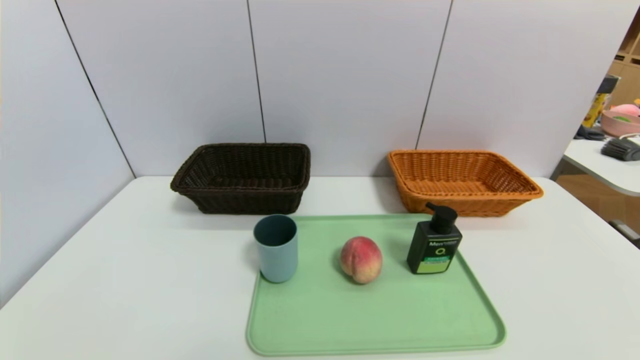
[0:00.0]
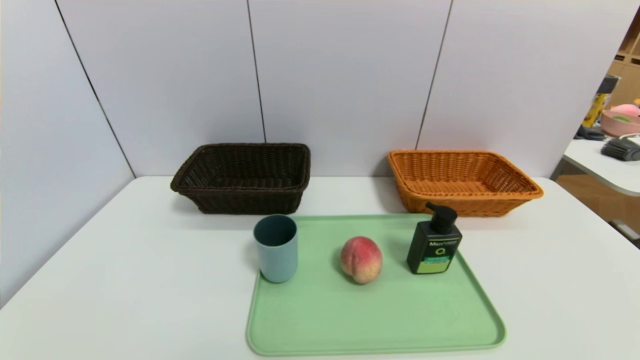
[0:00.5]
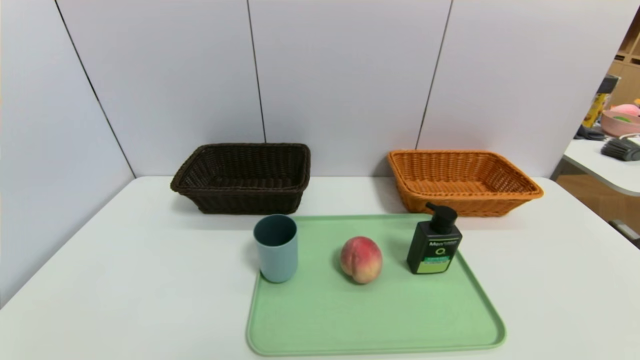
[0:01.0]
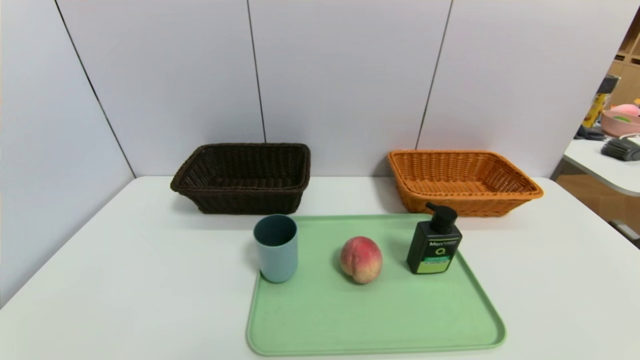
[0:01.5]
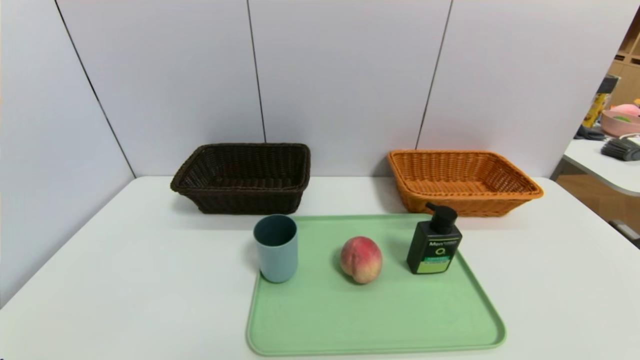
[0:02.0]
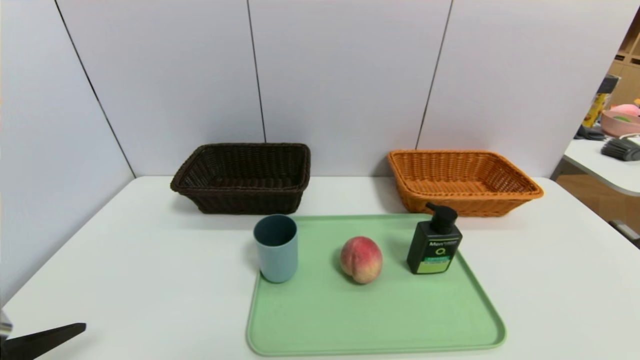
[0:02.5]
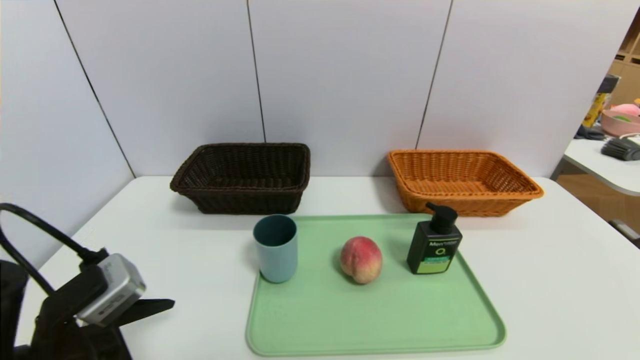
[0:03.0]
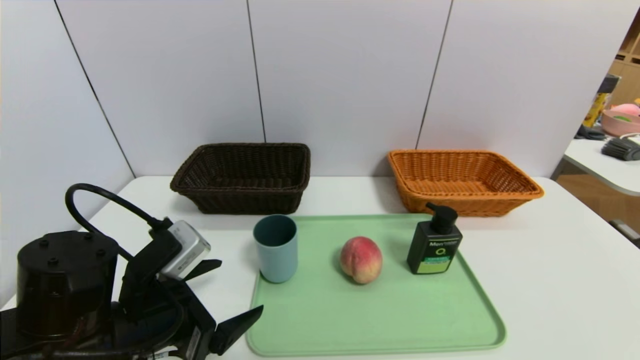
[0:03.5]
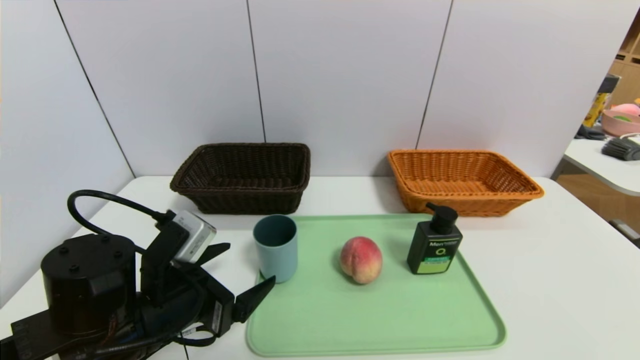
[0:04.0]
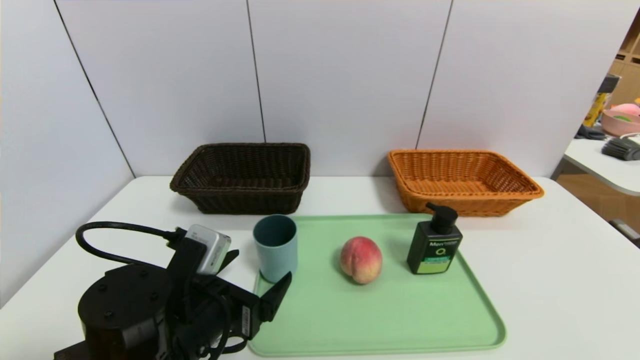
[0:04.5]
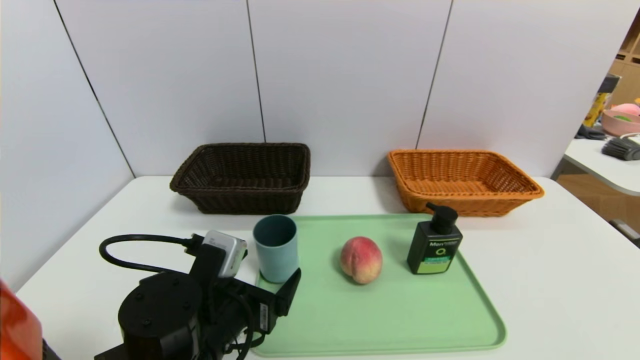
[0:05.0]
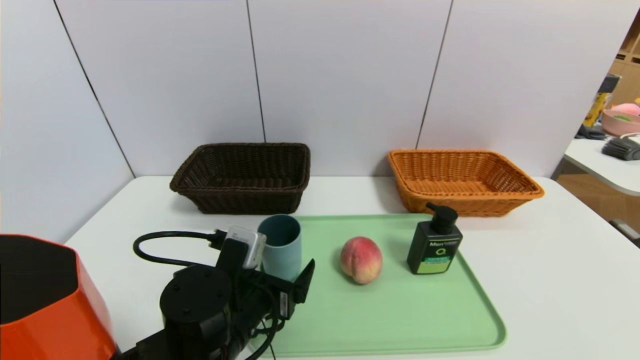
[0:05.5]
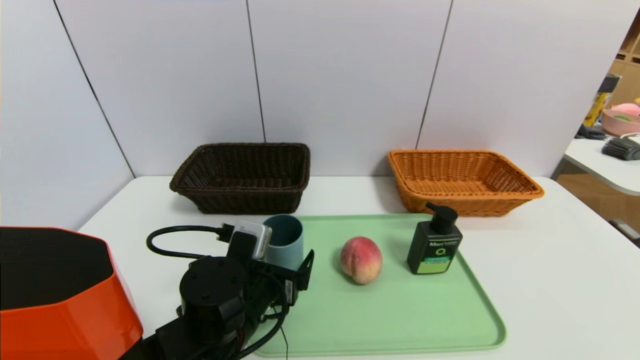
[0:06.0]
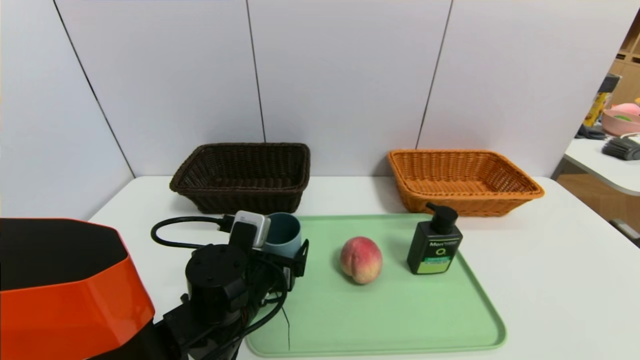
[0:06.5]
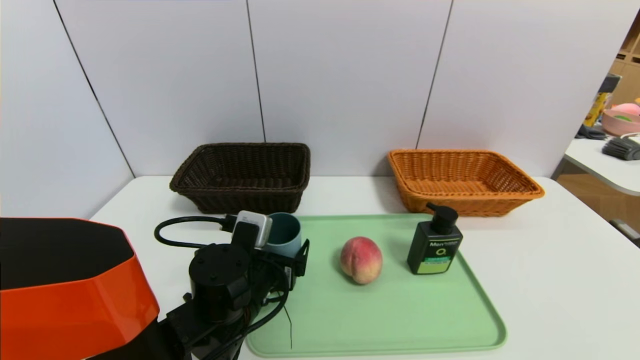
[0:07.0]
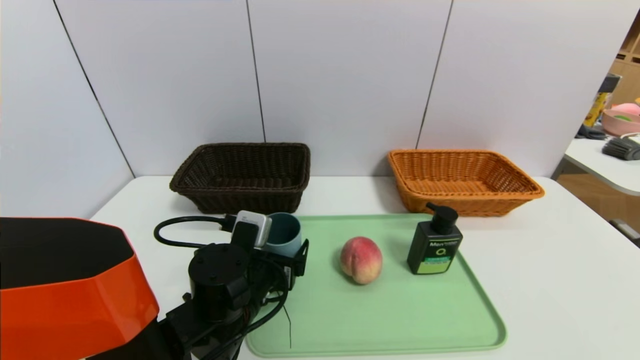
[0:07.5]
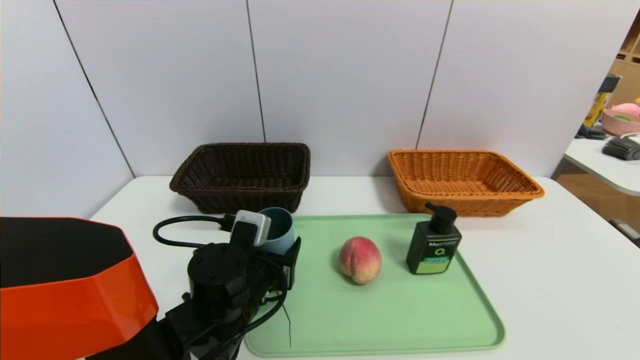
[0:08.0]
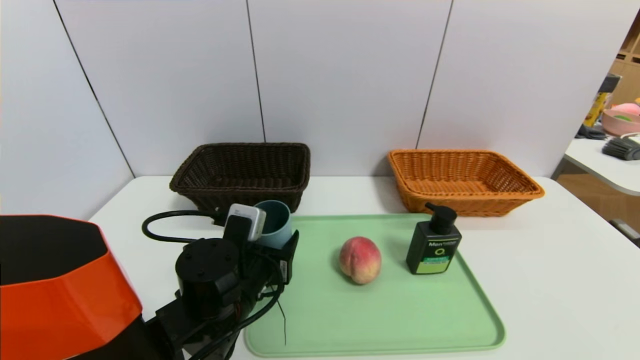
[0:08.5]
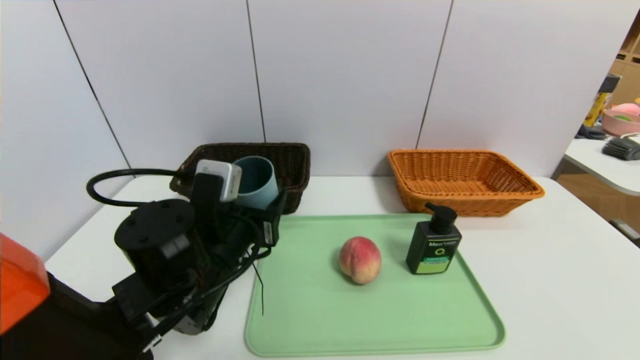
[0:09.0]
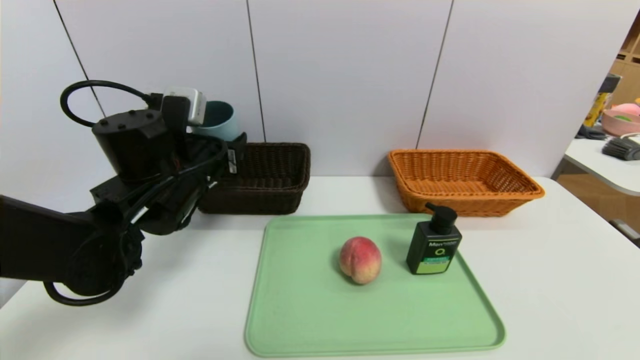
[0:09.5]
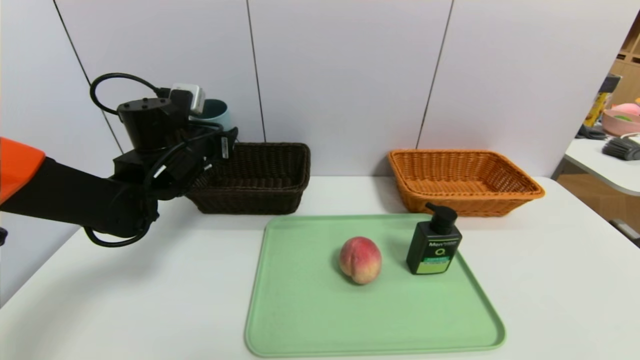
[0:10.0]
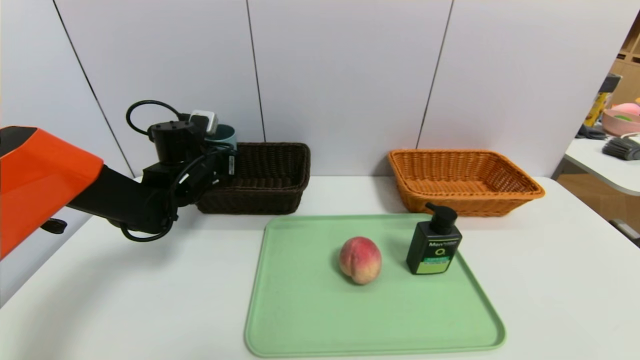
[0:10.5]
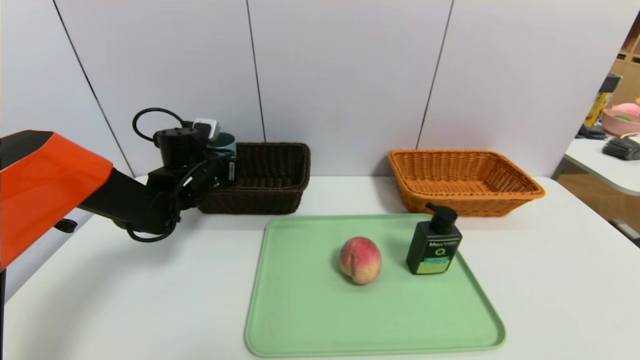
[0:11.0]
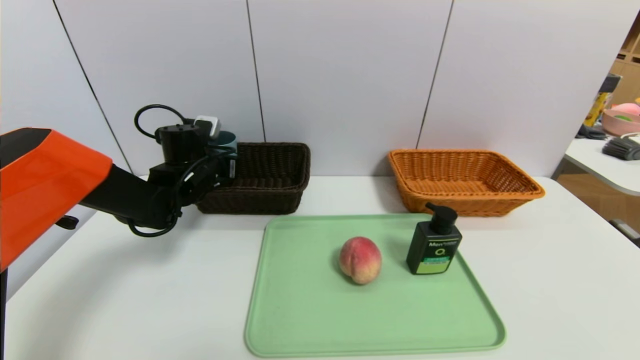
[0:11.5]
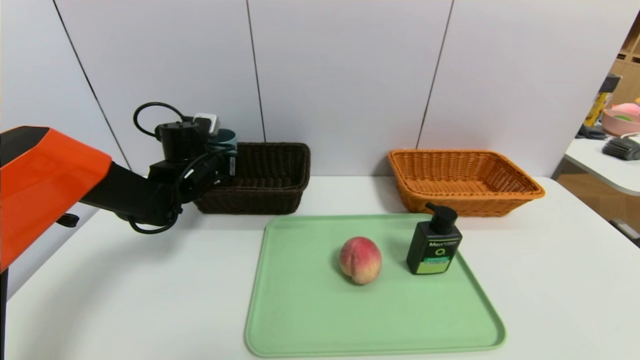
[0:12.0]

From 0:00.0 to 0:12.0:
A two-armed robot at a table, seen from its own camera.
Task of the whole recording: place the food in the right basket with the right gripper, and place the non food items in the left basket with the left gripper.
From 0:02.0 to 0:04.0: The left gripper heads forward and to the right, covering roughly 20 cm.
From 0:04.0 to 0:06.0: The left gripper heads to the right and downward, covering roughly 10 cm.
From 0:06.0 to 0:08.0: The left gripper closes its fingers.
From 0:08.0 to 0:10.0: The left gripper moves forward, upward and to the left, roughly 20 cm.
From 0:10.0 to 0:12.0: The left gripper heads forward and downward, covering some 10 cm.

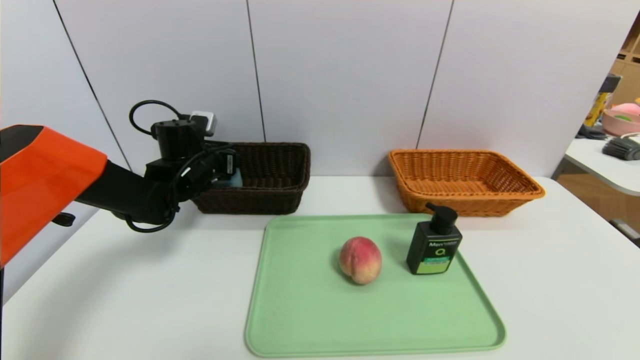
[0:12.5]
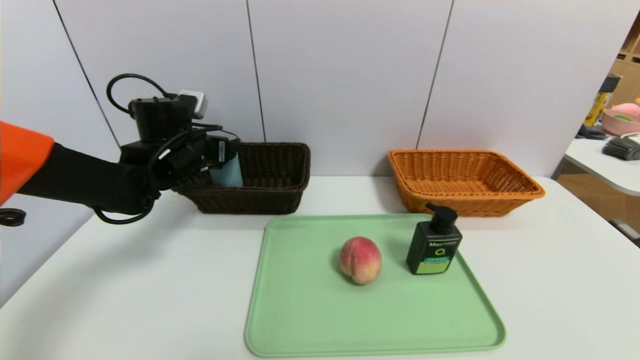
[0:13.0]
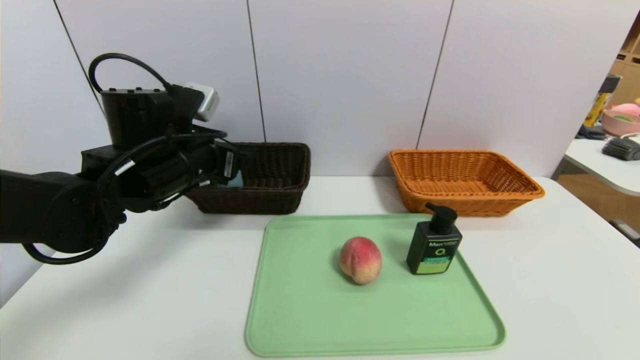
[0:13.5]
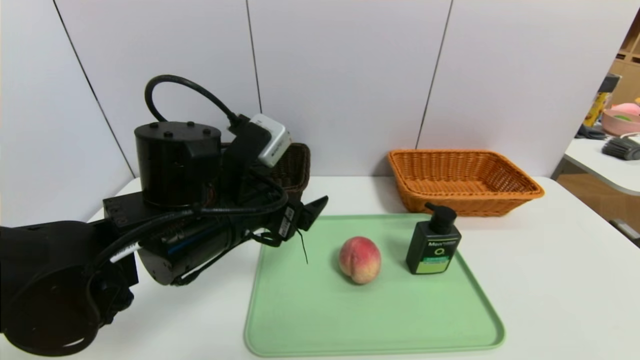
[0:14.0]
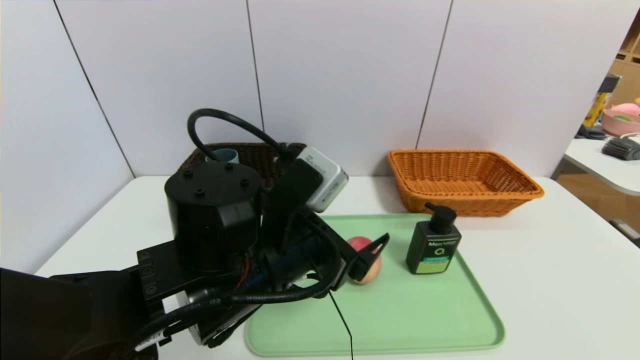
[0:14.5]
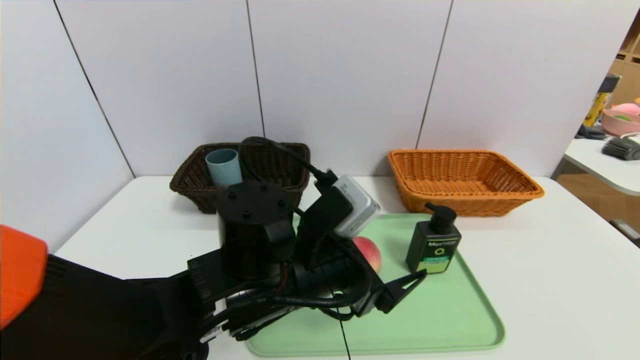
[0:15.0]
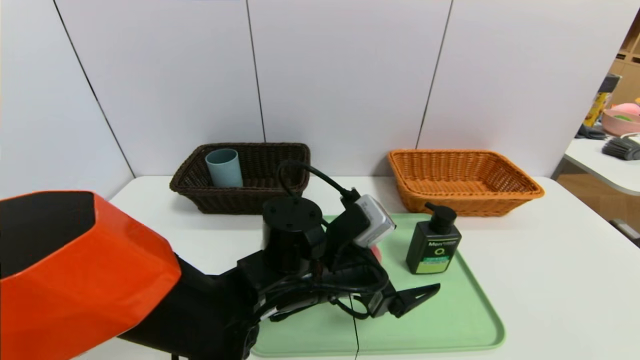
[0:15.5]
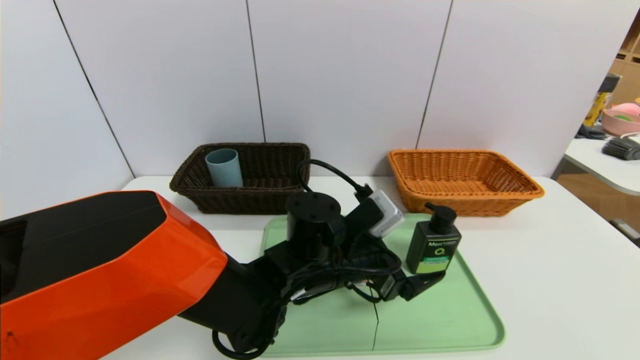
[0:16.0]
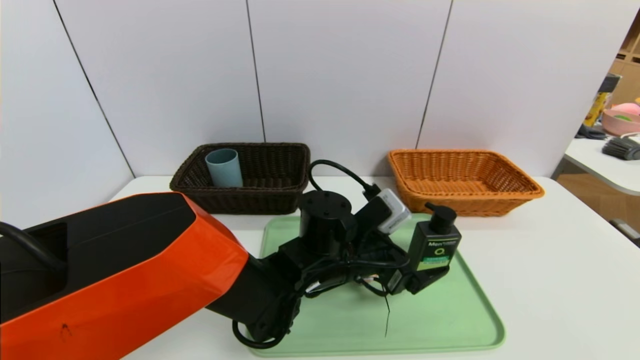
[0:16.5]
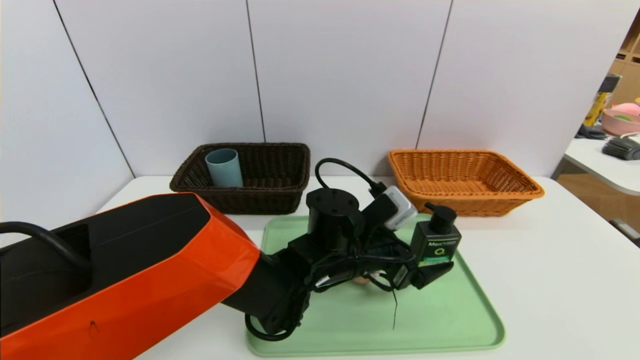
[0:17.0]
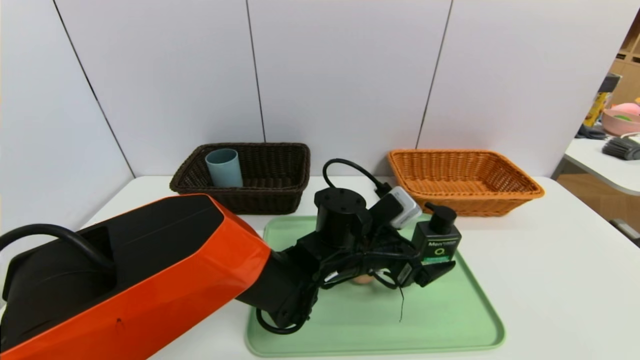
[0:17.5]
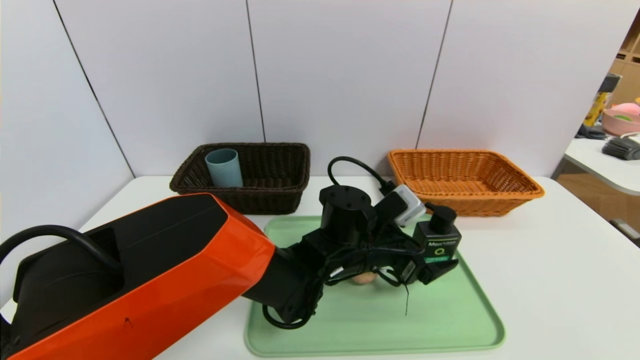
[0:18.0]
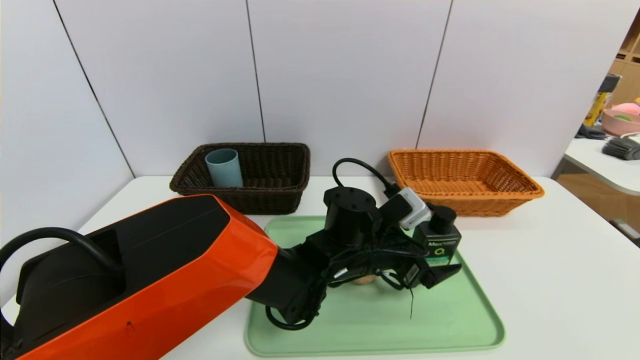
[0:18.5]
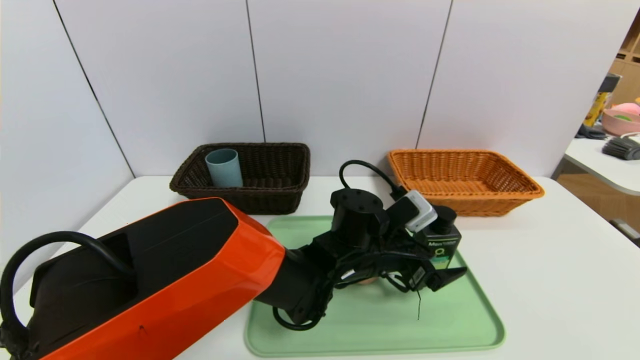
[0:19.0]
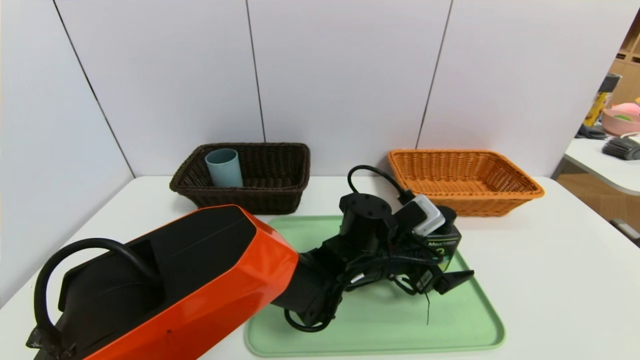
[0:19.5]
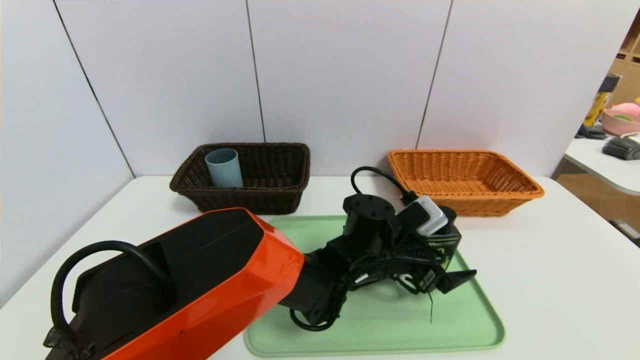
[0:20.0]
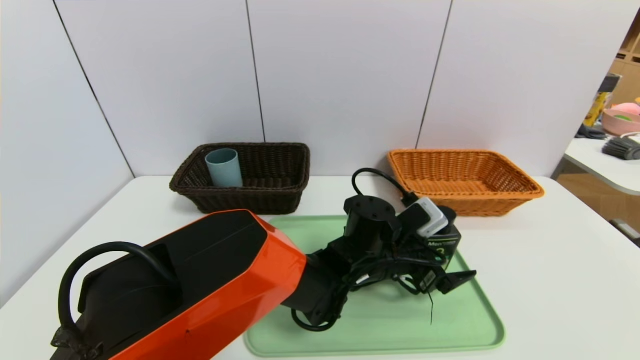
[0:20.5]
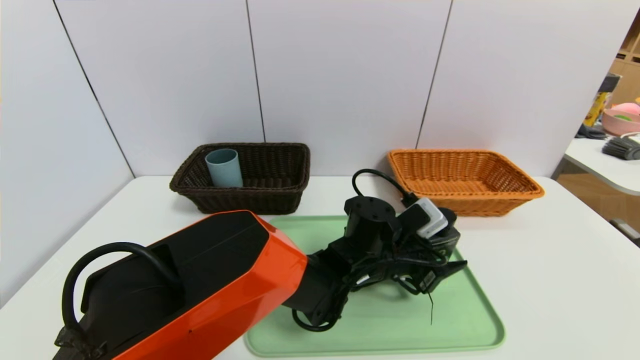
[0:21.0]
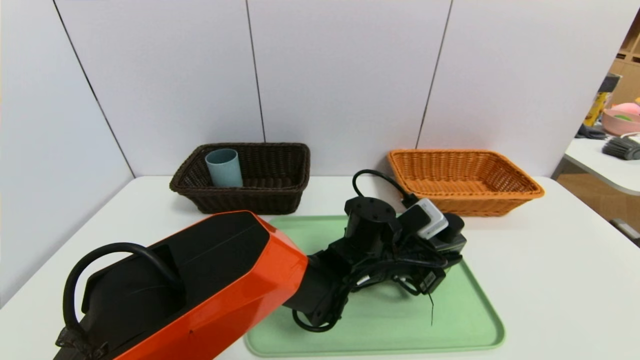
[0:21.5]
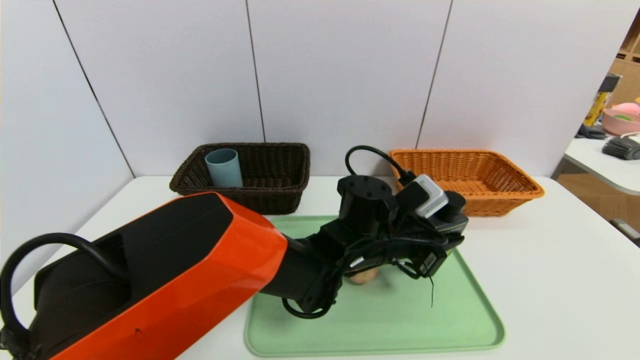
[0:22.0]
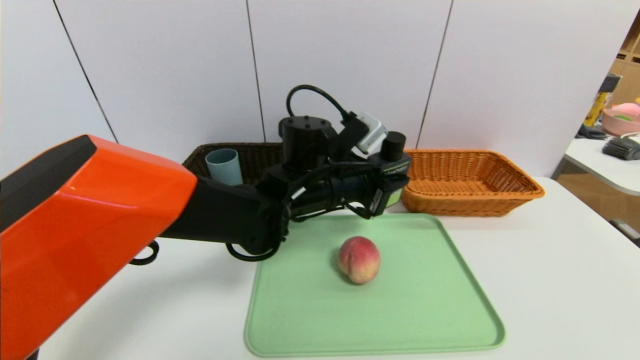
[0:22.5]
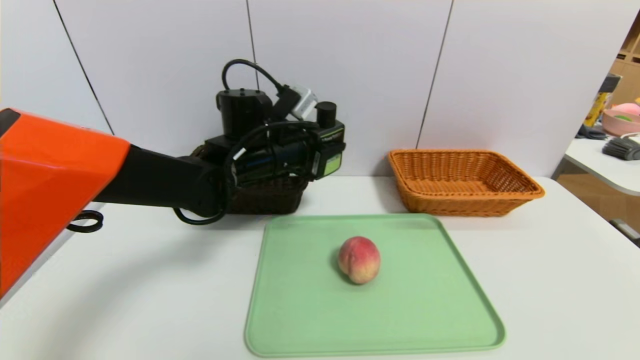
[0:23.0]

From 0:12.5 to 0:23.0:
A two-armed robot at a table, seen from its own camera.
Task of the whole recording: place the food in the right basket with the right gripper, and place the non food items in the left basket with the left gripper.
From 0:12.5 to 0:14.5: The left gripper shifts about 30 cm backward and to the right.
From 0:14.5 to 0:16.5: The left gripper is displaced to the right, downward and forward by approximately 15 cm.
From 0:16.5 to 0:19.0: The grippers make only small movements.
From 0:19.0 to 0:21.0: The left gripper closes its fingers.
From 0:21.0 to 0:23.0: The left gripper is displaced to the left, upward and forward by approximately 25 cm, and closes.
